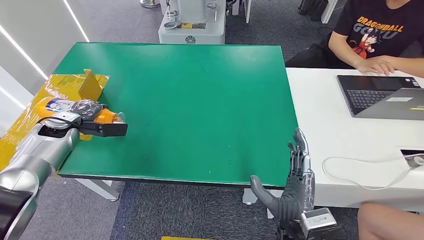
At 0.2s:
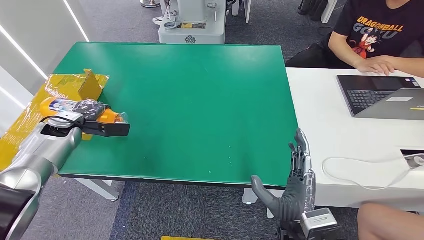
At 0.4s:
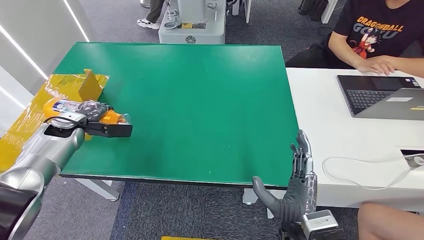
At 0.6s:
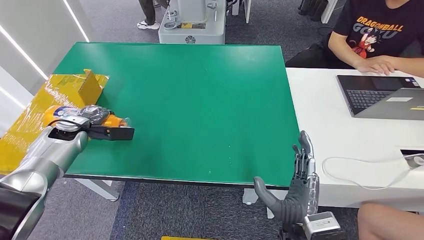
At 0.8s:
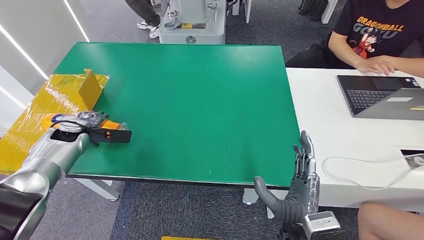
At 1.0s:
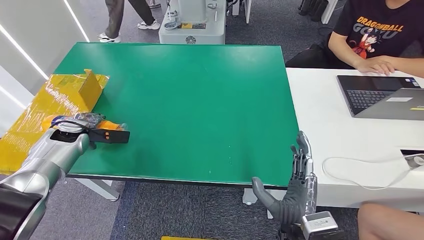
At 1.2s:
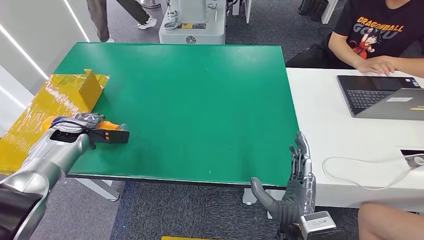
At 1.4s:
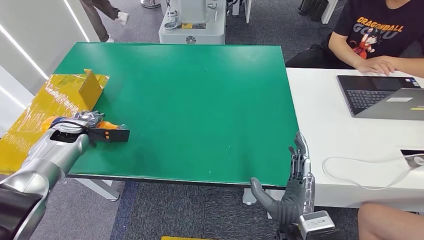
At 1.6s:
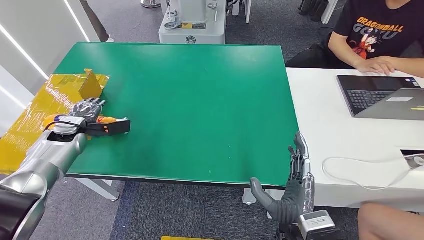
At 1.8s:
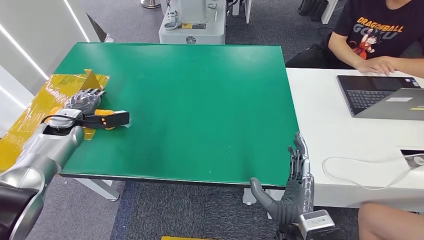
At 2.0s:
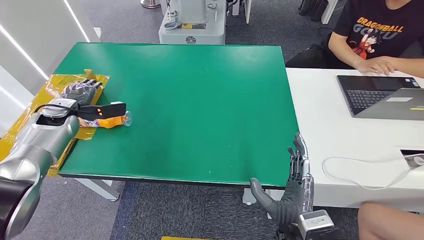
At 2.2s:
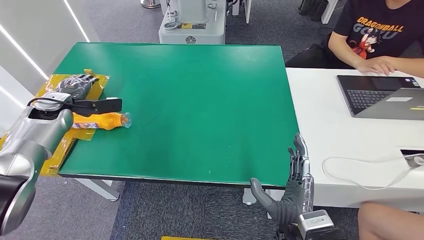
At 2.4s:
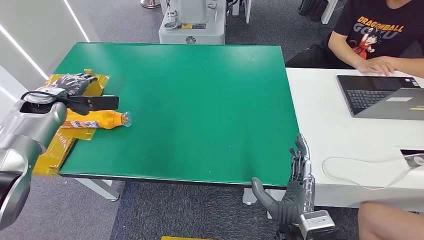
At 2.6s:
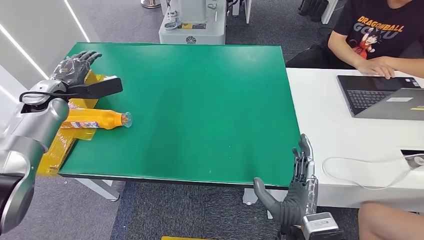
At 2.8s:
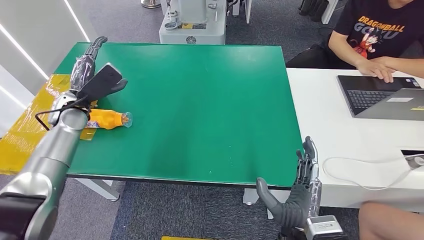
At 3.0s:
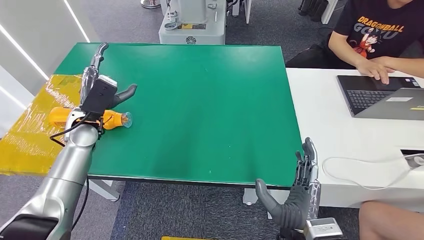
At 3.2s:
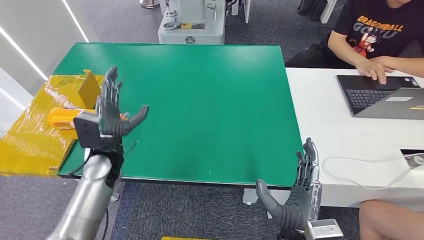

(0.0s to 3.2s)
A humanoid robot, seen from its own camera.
Step, 0.0s - 3.2s: Turn the bottle to the front side.
0.0s - 1.6s: The hands make only small movements.
1.6s - 3.2s: The left hand moves to the right, some 20 cm.

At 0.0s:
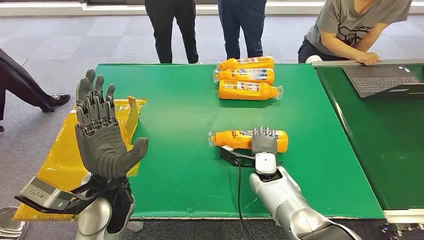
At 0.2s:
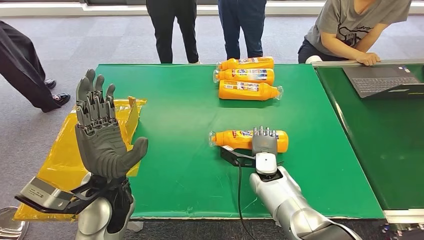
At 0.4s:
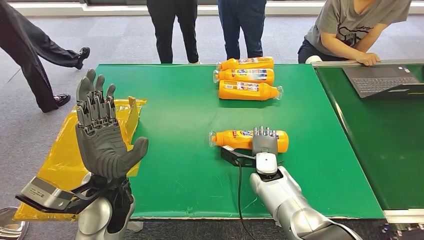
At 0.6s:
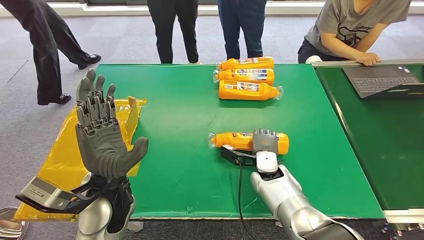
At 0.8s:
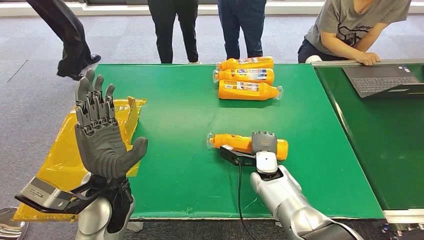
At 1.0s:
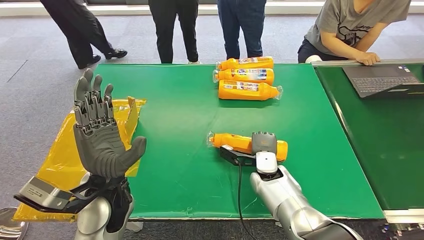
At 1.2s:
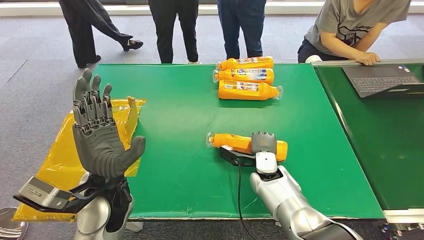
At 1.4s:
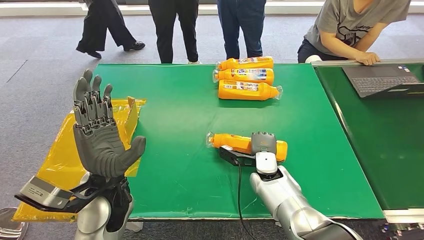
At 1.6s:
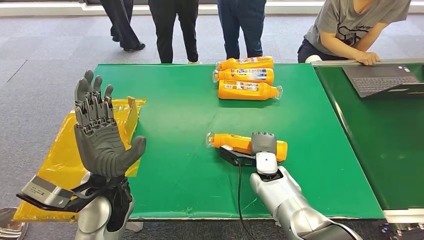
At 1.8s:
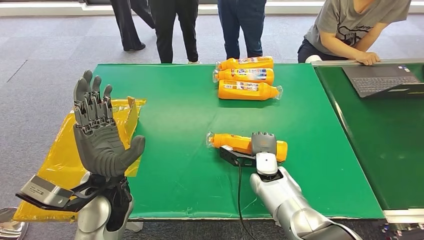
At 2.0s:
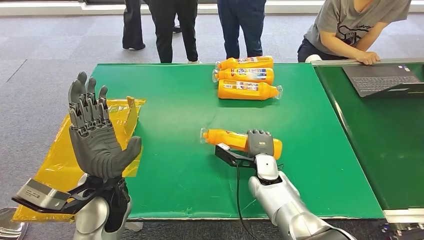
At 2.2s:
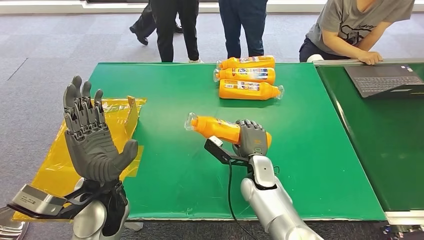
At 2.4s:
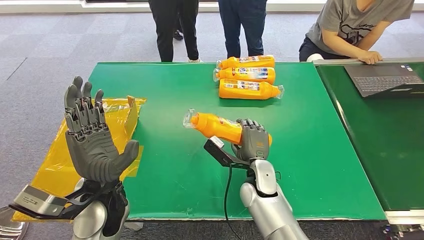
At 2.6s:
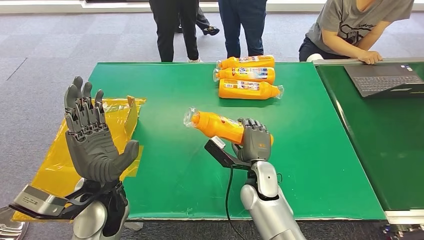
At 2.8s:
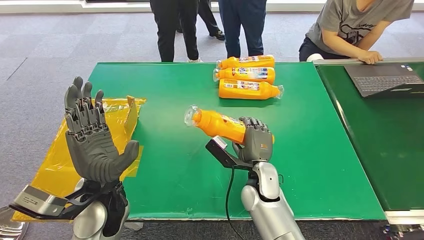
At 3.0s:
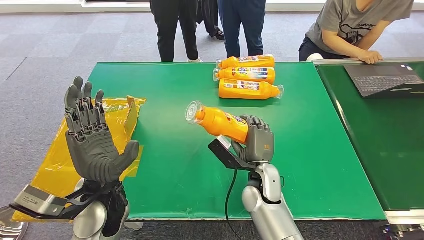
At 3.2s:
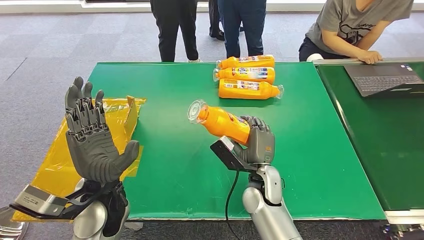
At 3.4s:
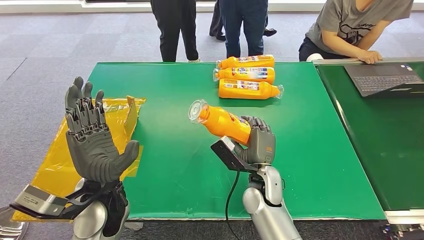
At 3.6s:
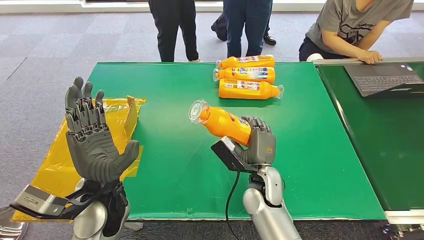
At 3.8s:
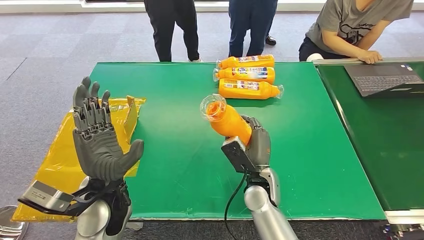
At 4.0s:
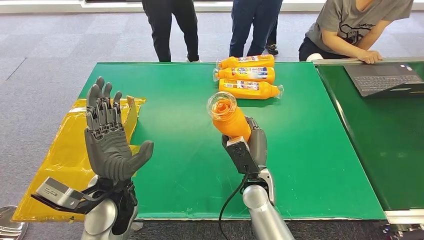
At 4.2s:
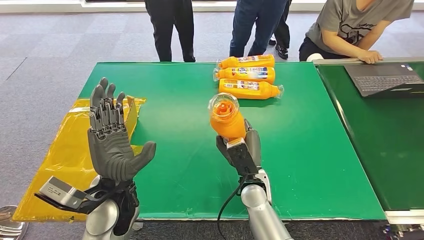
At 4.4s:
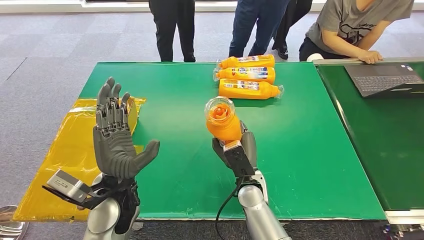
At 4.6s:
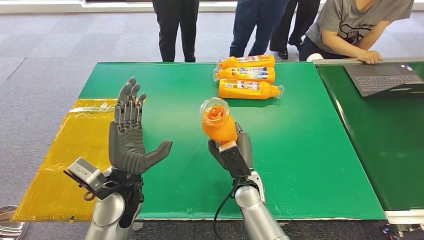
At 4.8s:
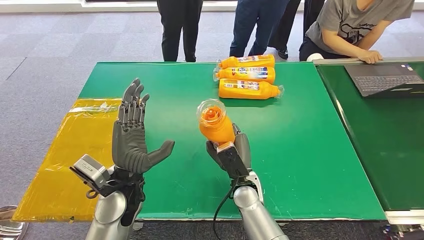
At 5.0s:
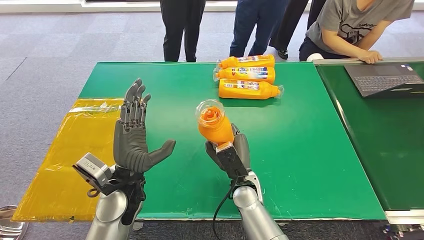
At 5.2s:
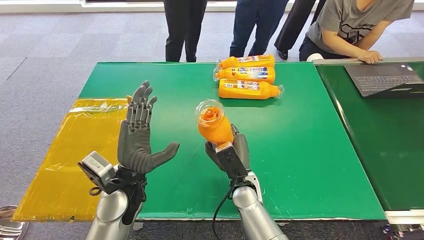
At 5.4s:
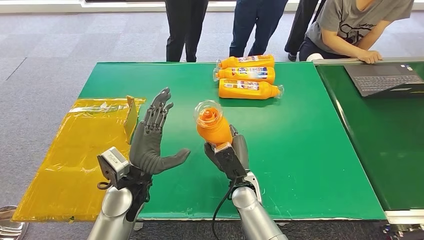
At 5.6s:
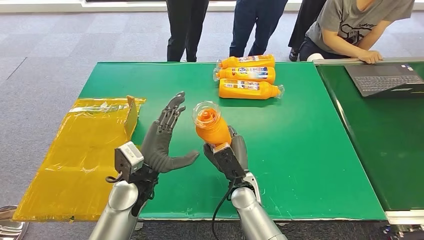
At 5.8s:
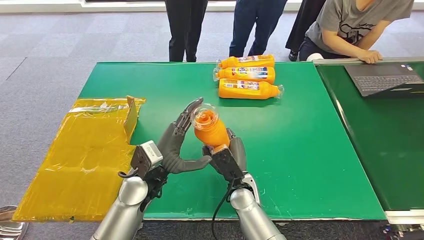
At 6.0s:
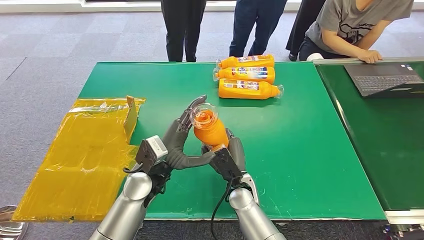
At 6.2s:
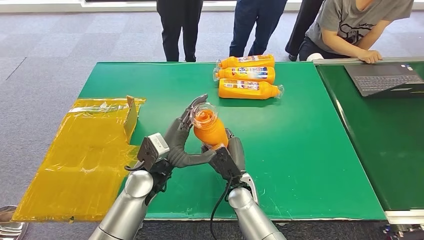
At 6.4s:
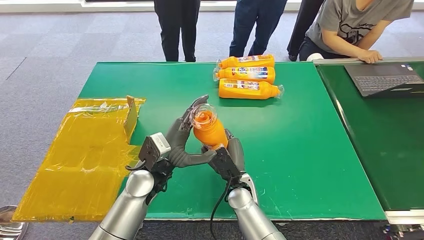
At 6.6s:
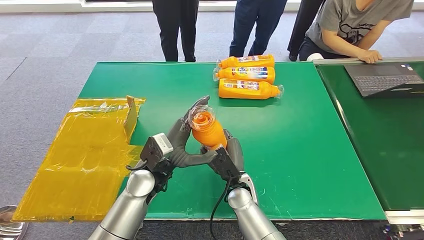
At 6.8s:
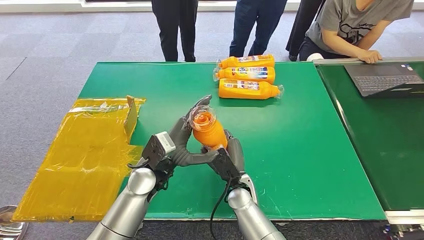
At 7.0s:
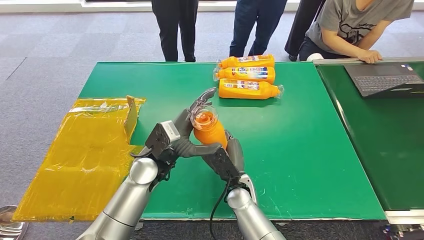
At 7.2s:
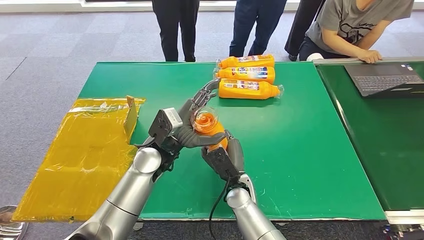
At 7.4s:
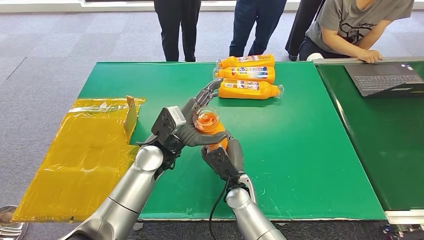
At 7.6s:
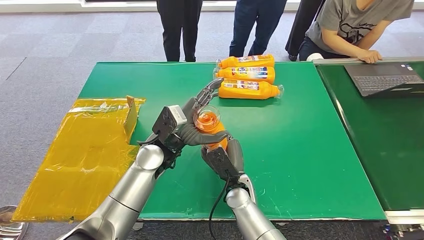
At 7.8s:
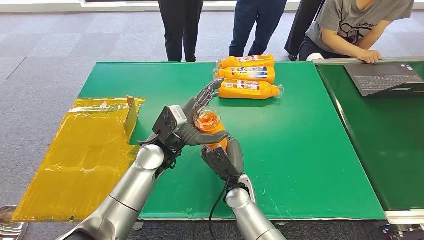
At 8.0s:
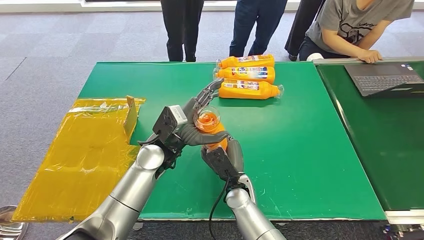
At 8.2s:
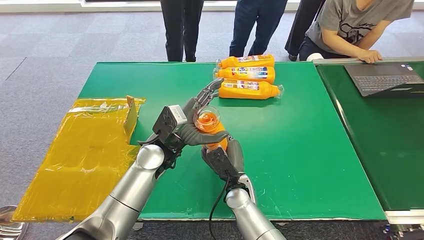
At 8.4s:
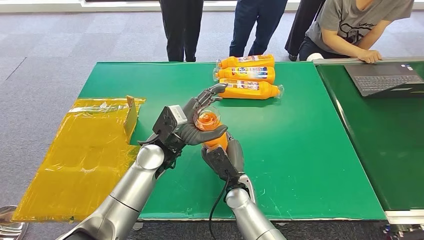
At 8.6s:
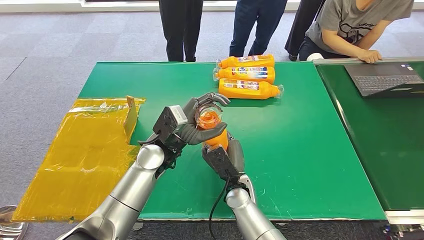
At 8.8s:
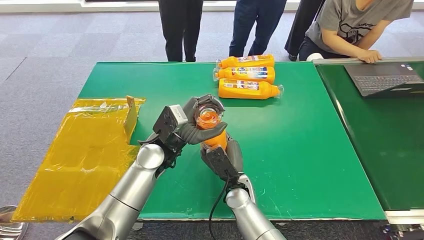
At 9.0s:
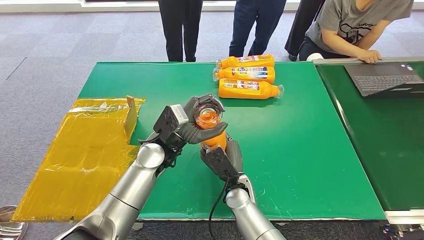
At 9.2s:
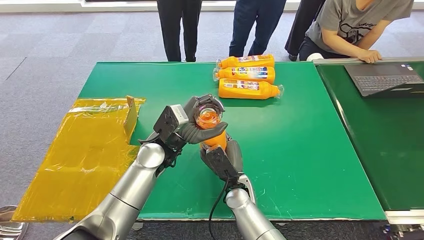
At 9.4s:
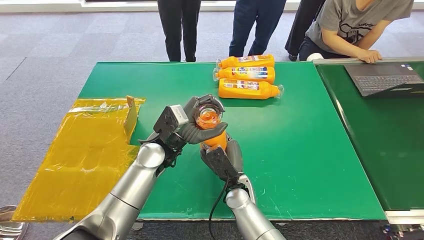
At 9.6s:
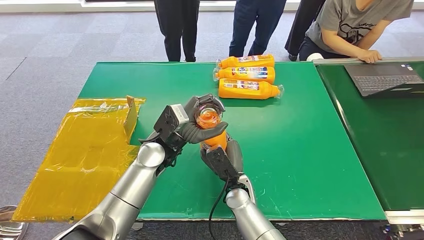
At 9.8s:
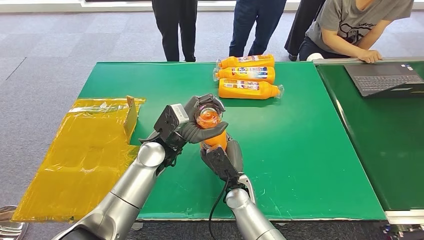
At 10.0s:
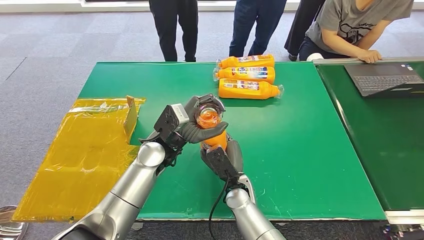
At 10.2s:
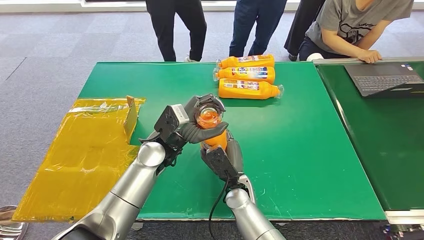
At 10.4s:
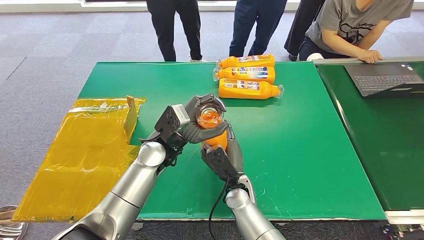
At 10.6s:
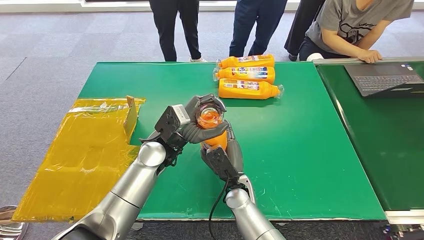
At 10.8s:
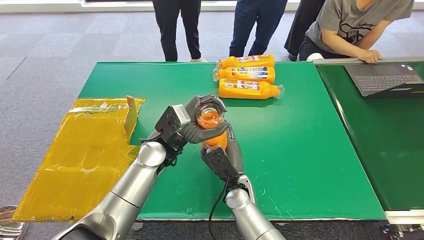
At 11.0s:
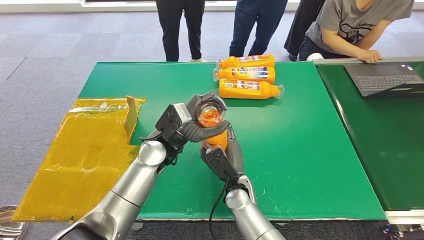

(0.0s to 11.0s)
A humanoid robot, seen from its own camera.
Step, 0.0s - 2.8s: Pick up the bottle from the table.
4.8s - 6.2s: The left hand ends up some 5 cm from where it was.
6.2s - 7.8s: The left hand moves about 5 cm.
7.8s - 11.0s: Neither hand changes place.

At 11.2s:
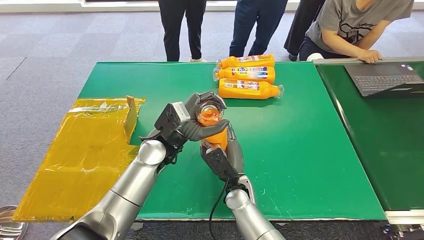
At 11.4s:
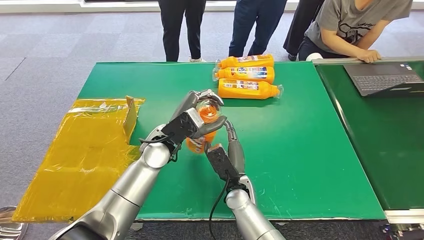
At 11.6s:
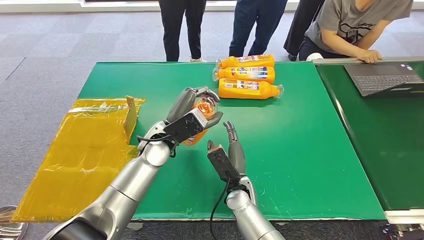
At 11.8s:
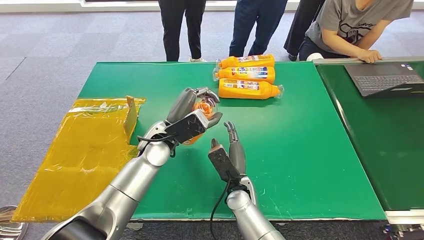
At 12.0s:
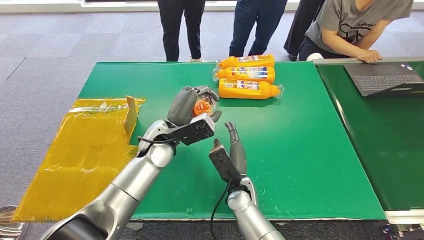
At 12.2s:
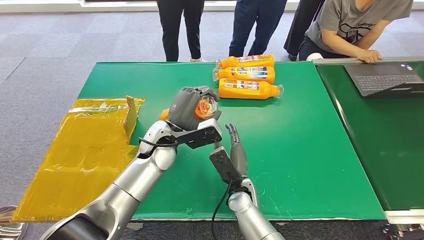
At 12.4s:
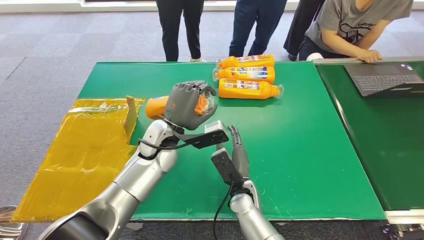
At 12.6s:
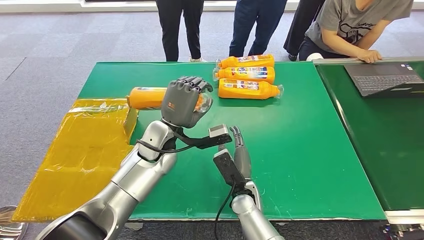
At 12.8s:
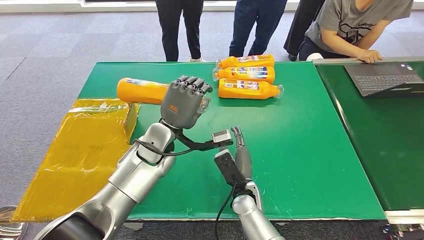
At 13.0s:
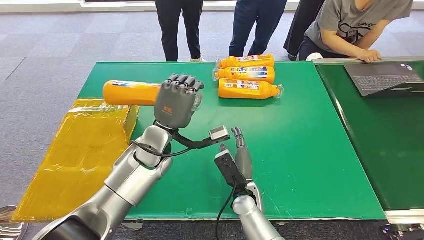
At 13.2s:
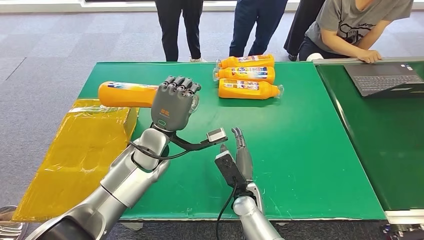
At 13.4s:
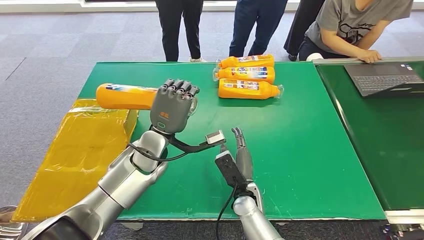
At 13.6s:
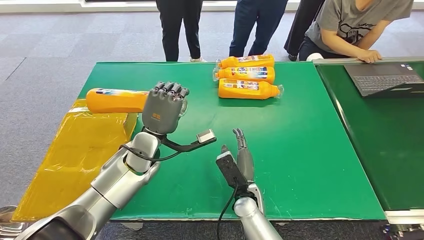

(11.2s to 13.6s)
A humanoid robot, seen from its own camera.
Step, 11.2s - 13.6s: Turn the bottle to the front side.
